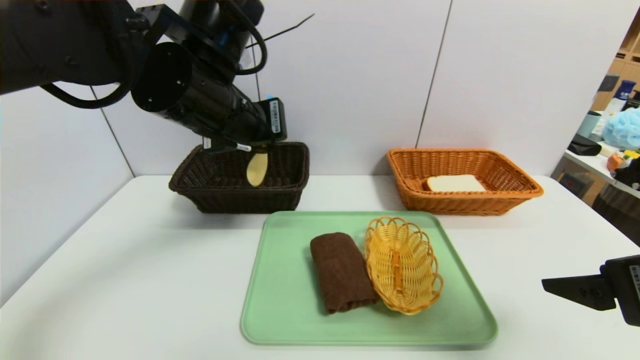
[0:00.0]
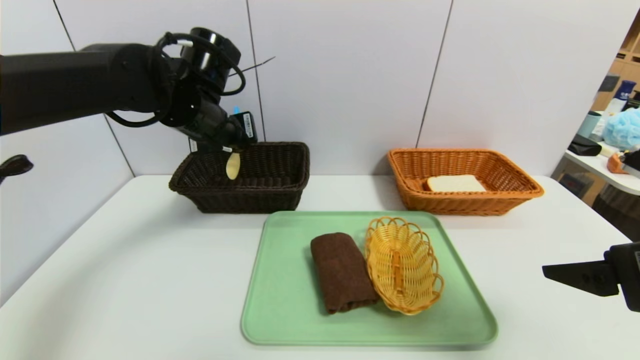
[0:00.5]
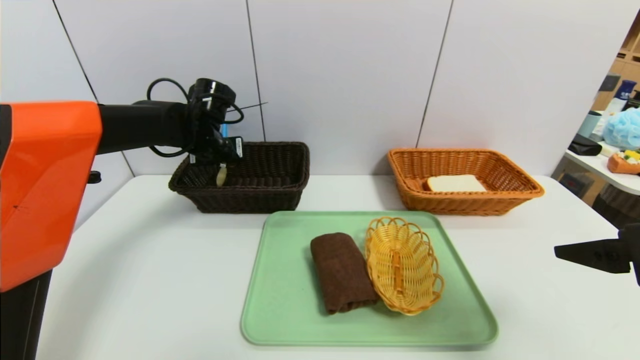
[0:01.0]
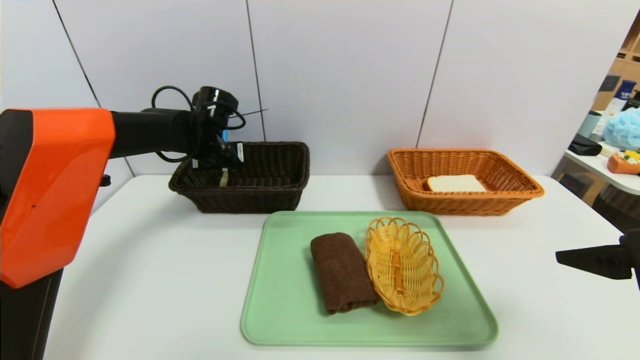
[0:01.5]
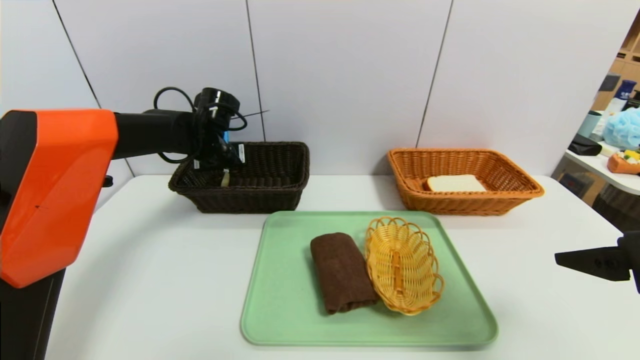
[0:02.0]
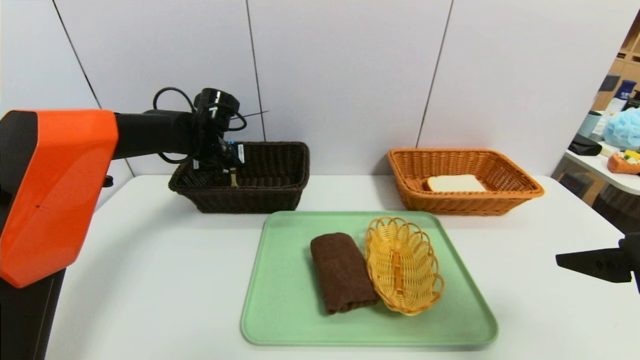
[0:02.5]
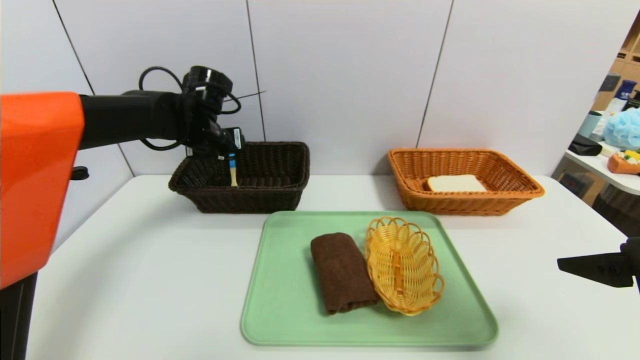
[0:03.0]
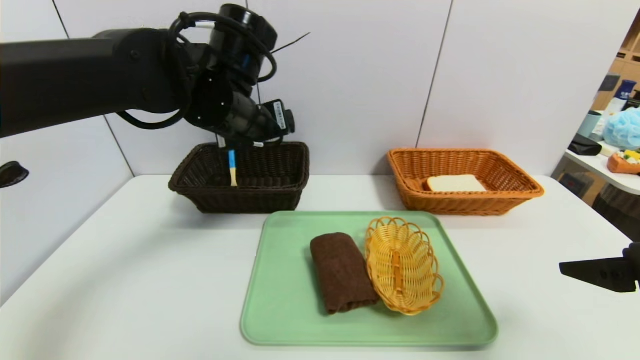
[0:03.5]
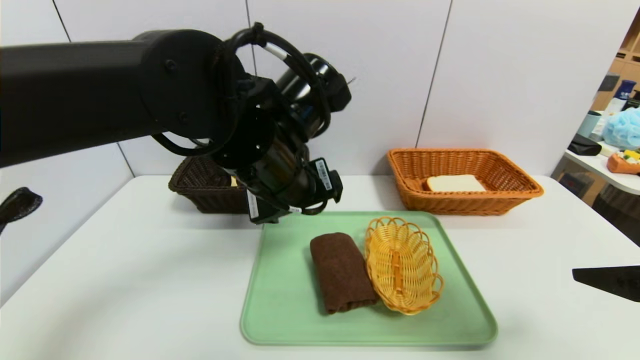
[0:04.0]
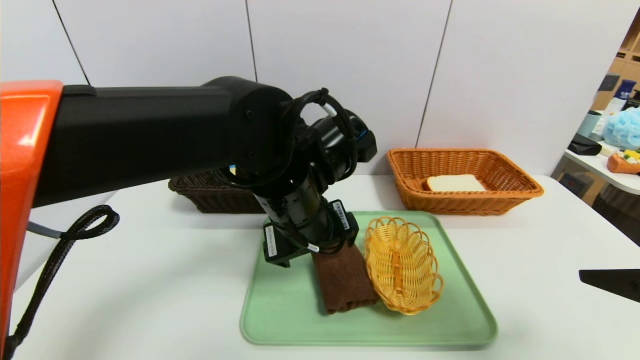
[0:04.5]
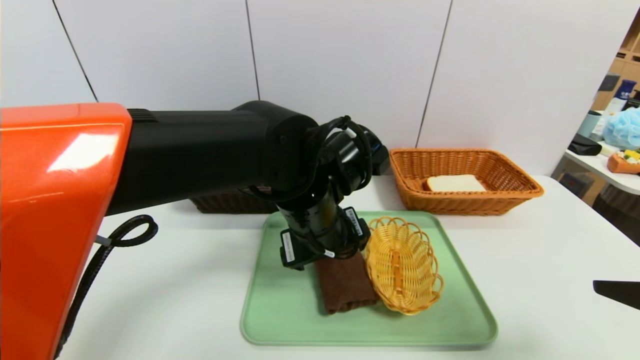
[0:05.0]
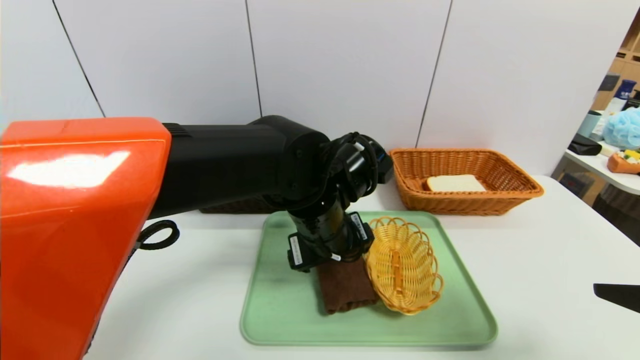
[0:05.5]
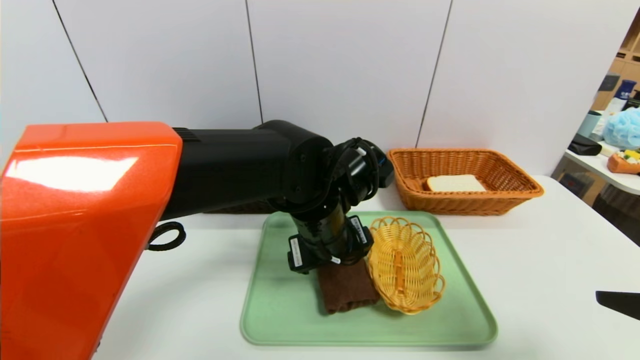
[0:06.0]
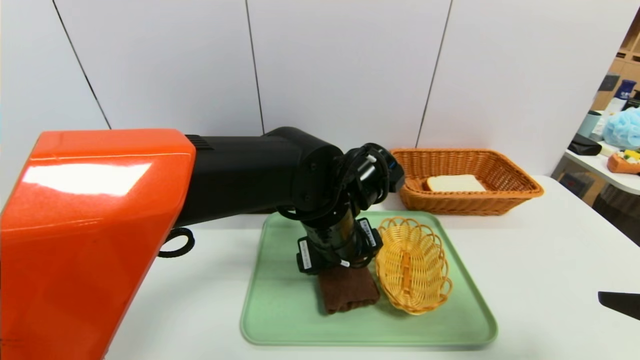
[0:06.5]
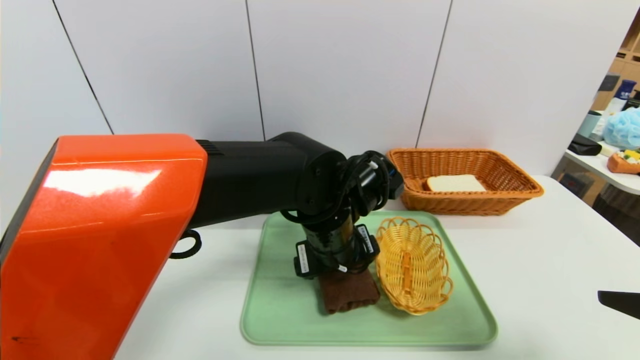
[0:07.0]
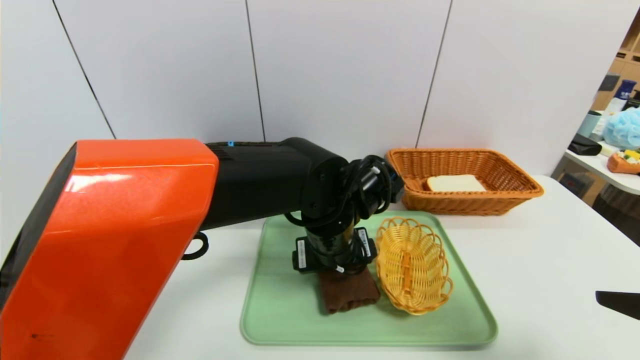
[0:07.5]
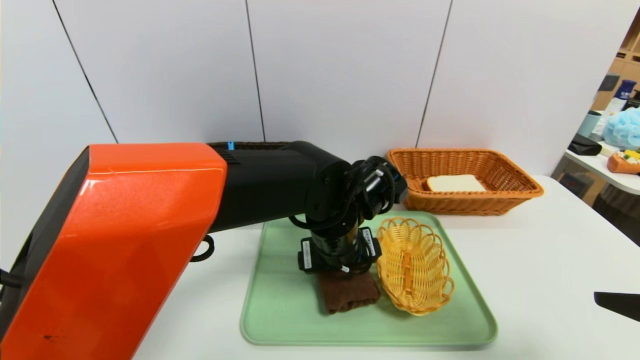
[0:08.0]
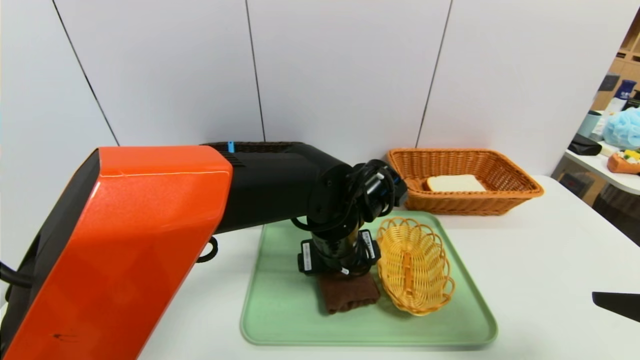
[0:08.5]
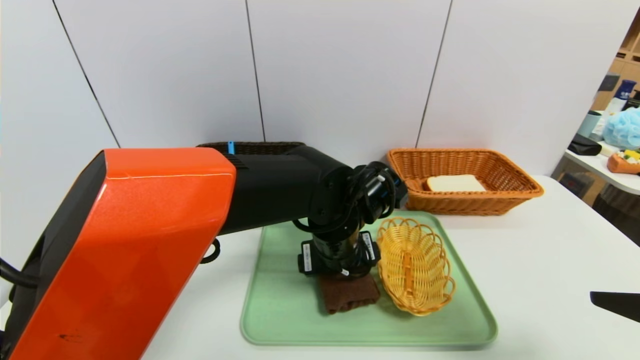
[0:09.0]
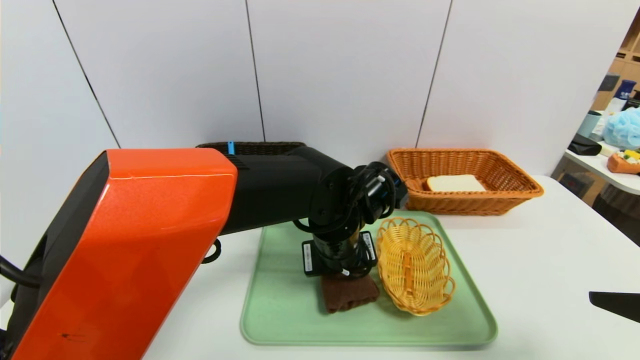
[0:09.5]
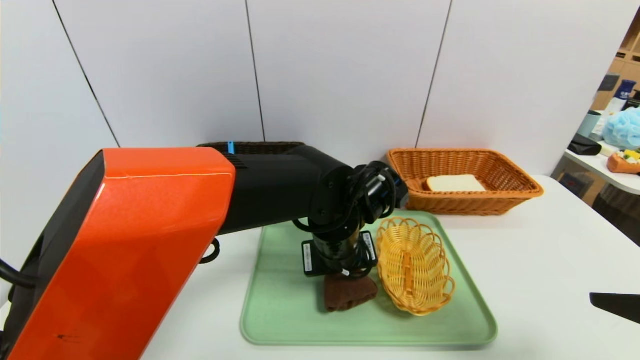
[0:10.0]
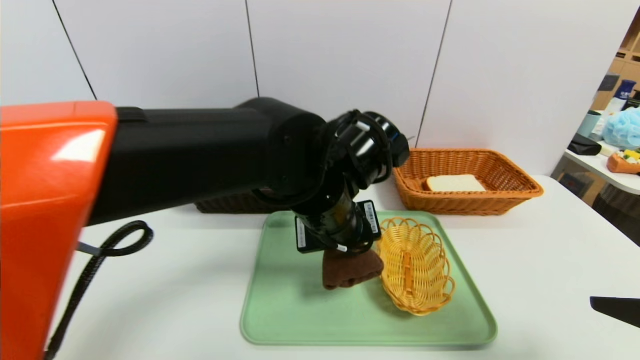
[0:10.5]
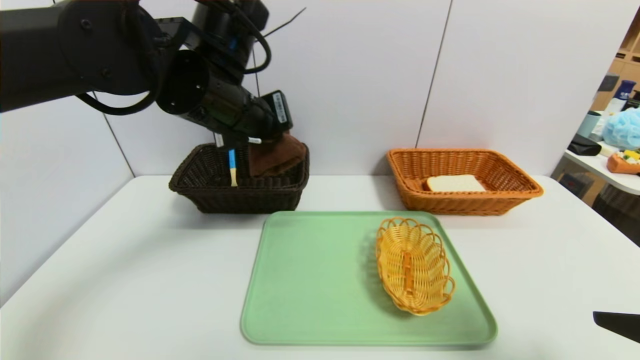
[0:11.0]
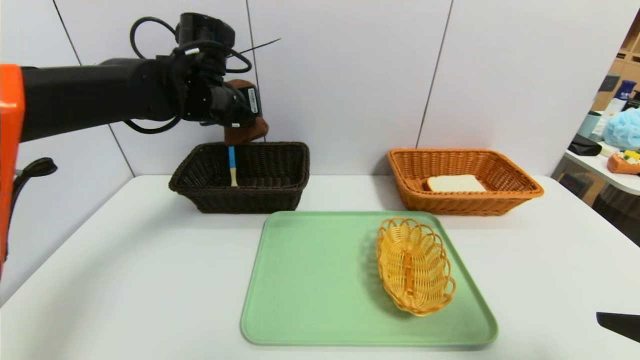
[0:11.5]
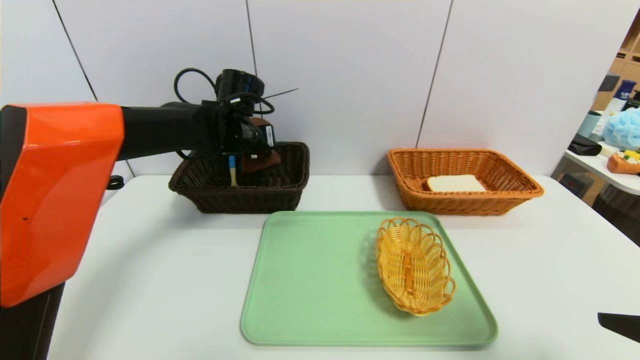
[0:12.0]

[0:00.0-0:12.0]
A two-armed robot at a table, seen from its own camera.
Task of the whole recording: place the food in the right basket with the right gripper, and place the non food items in the left basket with the left gripper.
Step, 0:00.0 to 0:02.5: Grasp the back scratcher and put it in the left basket.
0:00.0 to 0:02.0: The left gripper shifts roughly 25 cm forward, downward and to the left.
0:02.0 to 0:04.0: The left gripper is displaced backward and to the right by roughly 25 cm, and opens.
0:04.0 to 0:06.0: The left gripper shifts approximately 10 cm downward and to the right.
0:06.0 to 0:08.0: The grippers move only a little.
0:08.0 to 0:10.0: The left gripper closes.
0:10.0 to 0:12.0: The left gripper goes roughly 25 cm to the left and forward.

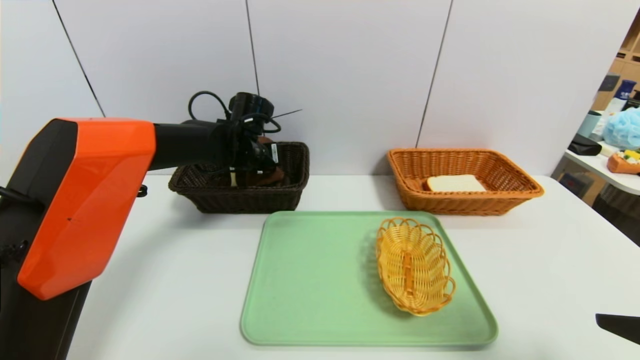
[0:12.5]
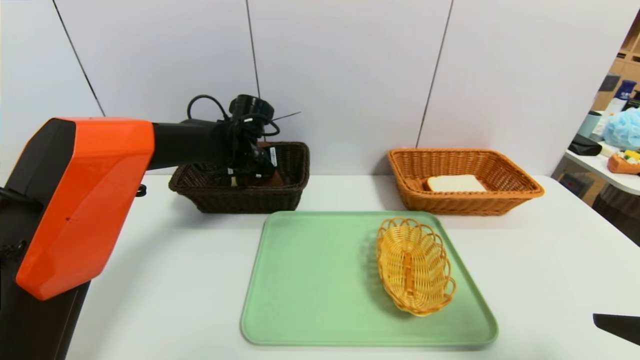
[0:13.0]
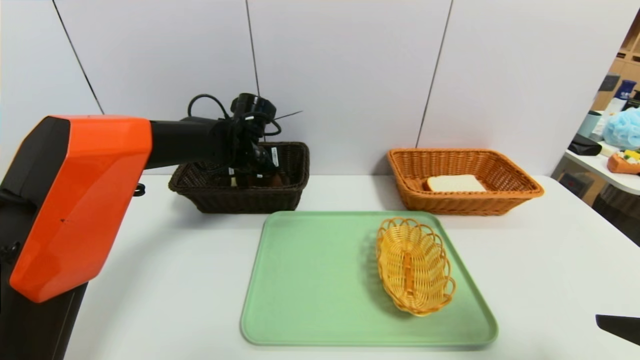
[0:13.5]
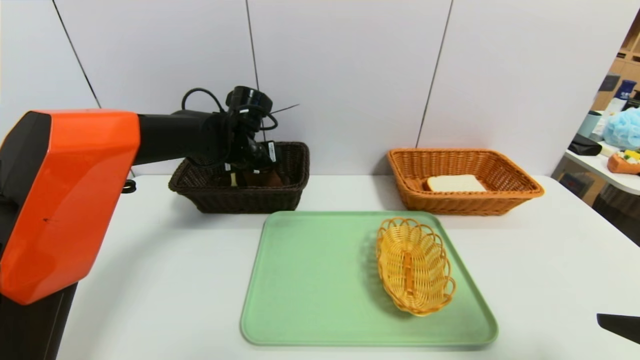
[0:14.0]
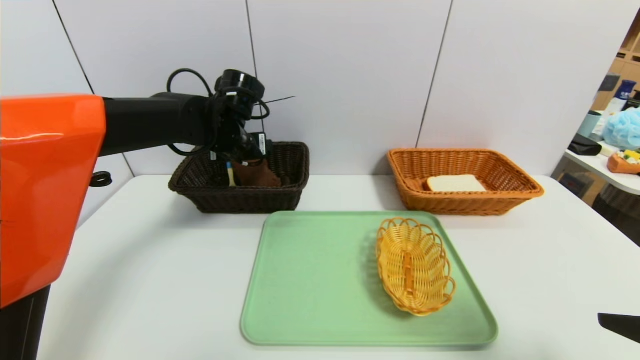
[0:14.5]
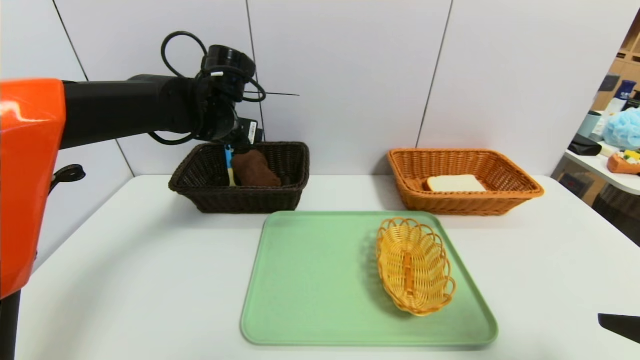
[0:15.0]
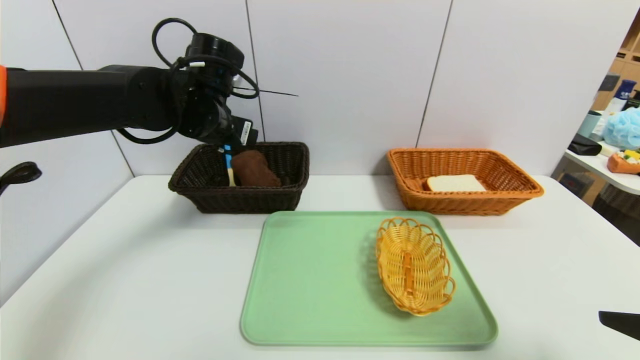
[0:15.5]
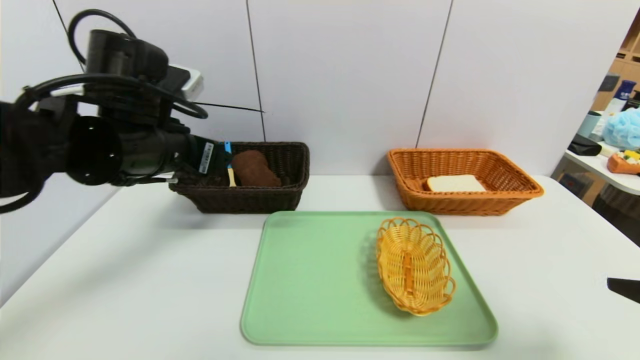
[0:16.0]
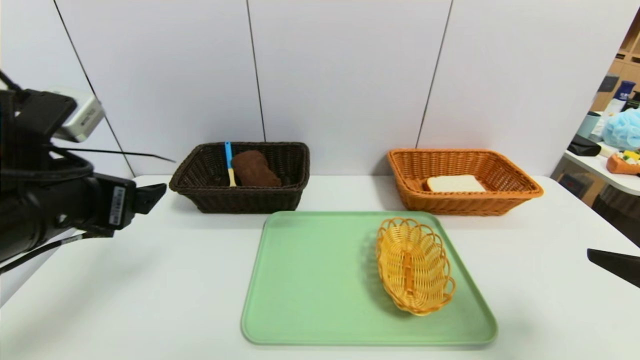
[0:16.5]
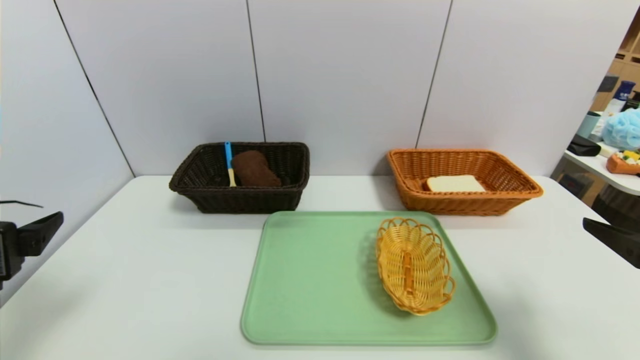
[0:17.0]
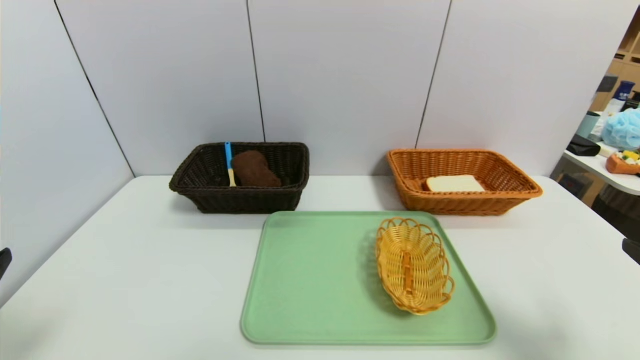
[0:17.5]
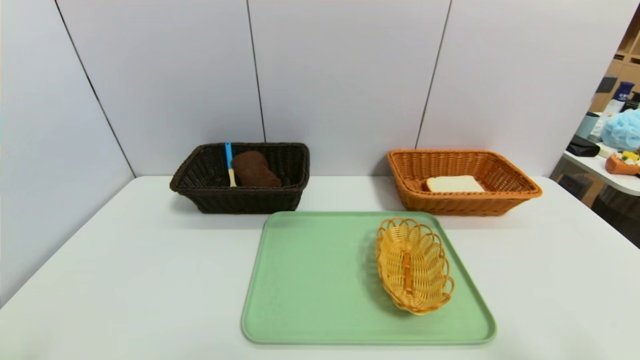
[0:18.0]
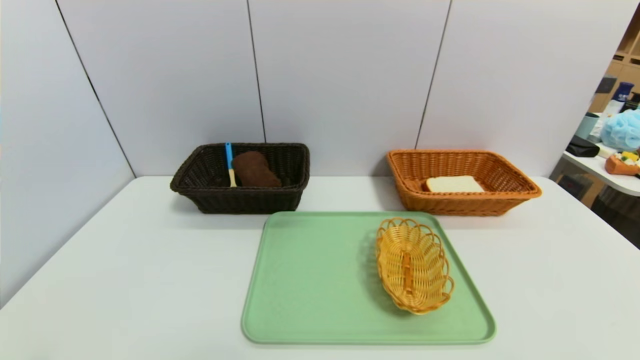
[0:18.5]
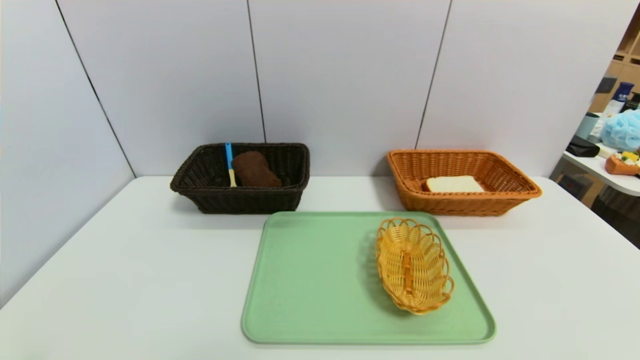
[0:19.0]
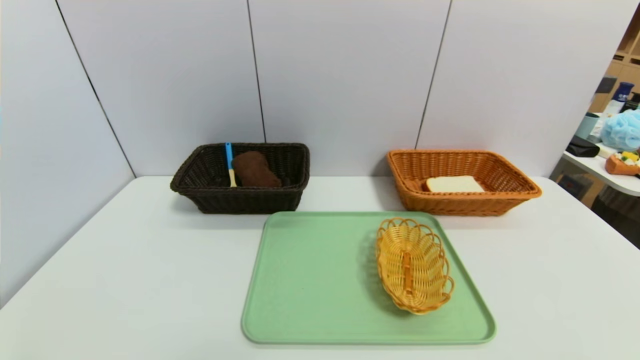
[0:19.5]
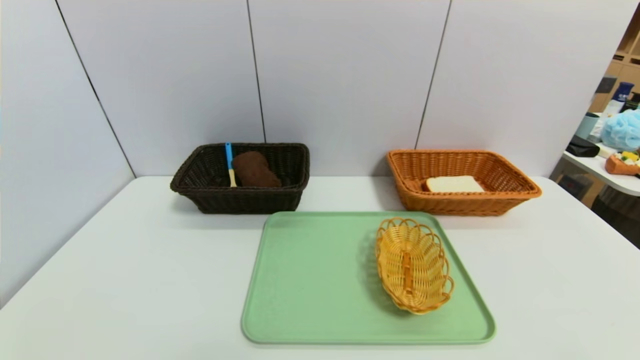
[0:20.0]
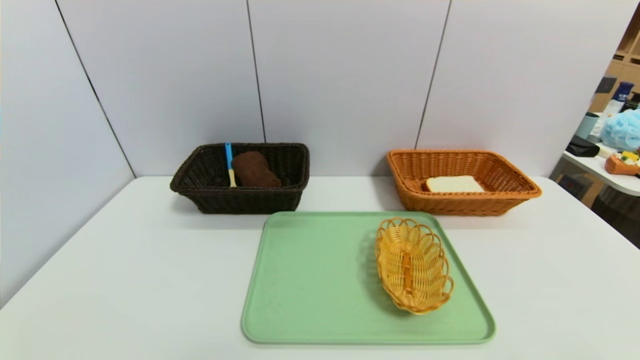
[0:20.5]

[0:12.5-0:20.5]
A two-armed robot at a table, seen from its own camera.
Task of the whole recording: place the food in the right basket with the right gripper, and place the non food items in the left basket with the left gripper.
0:12.5 to 0:14.5: The left gripper changes place by some 5 cm, and opens its fingers.
0:14.5 to 0:16.5: The left gripper heads backward and to the left, covering roughly 25 cm.
0:16.5 to 0:18.5: The right gripper shifts some 15 cm backward and downward; the left gripper travels backward and downward by about 20 cm.
